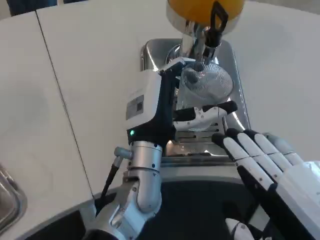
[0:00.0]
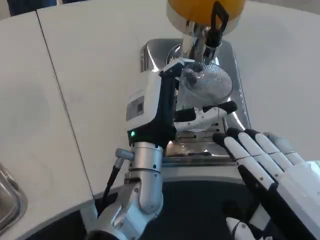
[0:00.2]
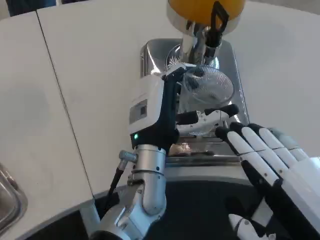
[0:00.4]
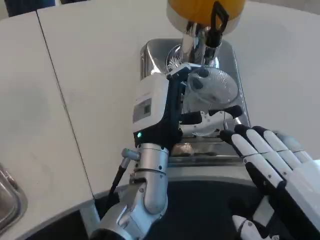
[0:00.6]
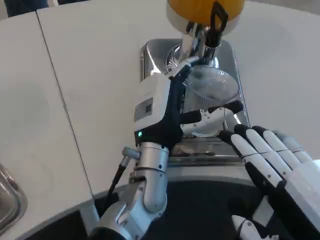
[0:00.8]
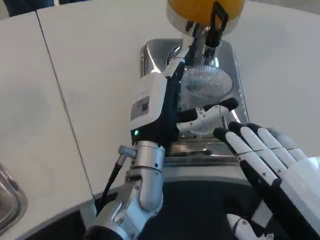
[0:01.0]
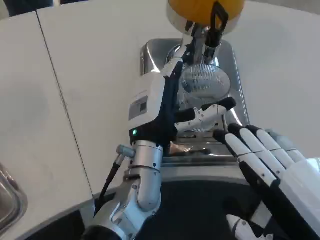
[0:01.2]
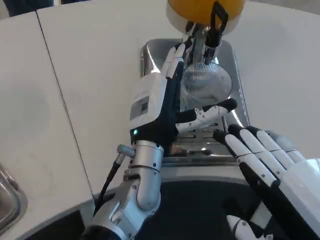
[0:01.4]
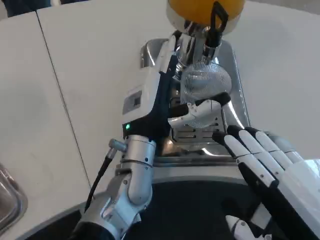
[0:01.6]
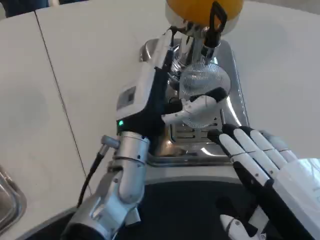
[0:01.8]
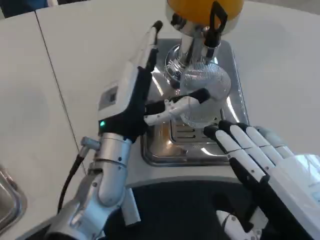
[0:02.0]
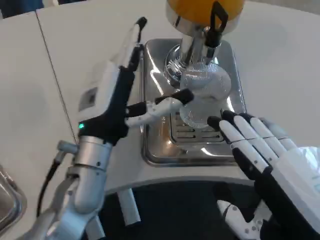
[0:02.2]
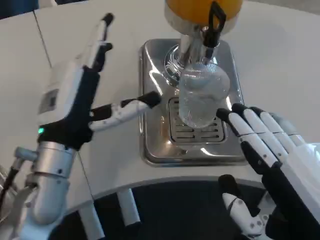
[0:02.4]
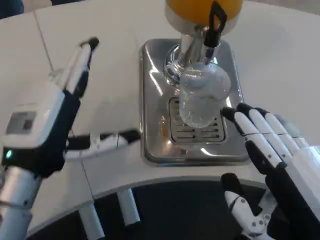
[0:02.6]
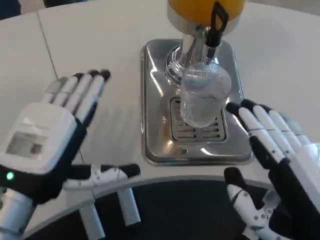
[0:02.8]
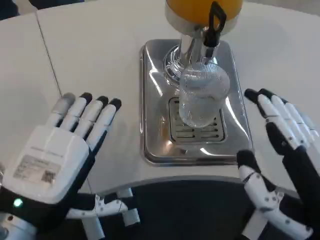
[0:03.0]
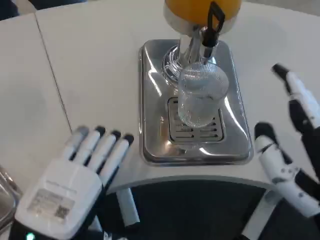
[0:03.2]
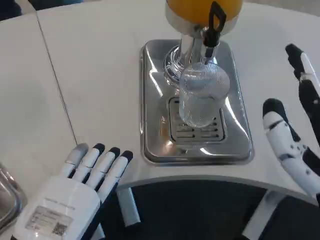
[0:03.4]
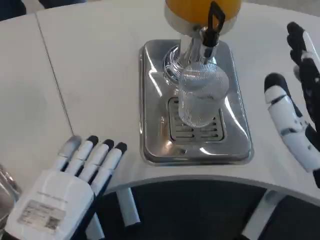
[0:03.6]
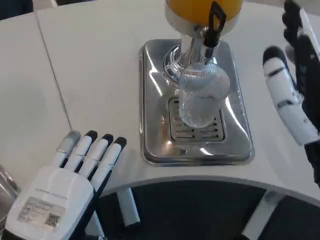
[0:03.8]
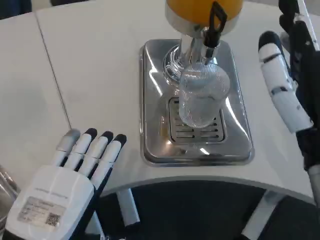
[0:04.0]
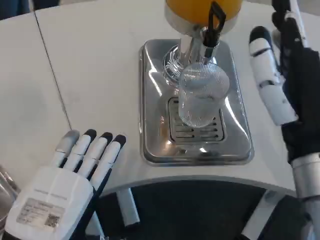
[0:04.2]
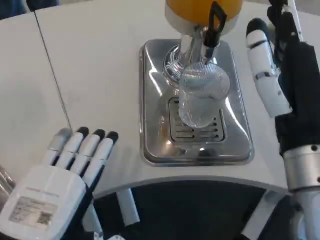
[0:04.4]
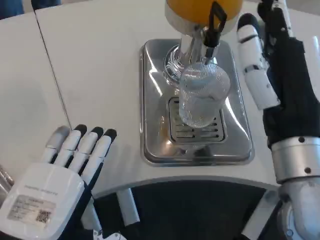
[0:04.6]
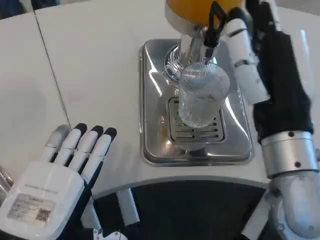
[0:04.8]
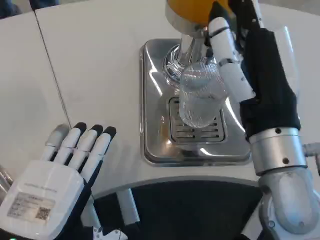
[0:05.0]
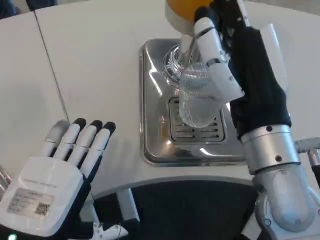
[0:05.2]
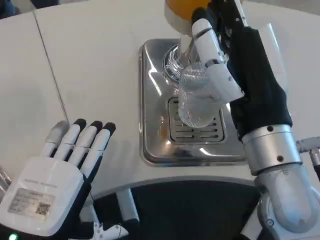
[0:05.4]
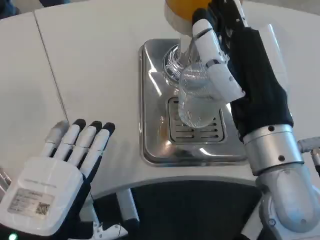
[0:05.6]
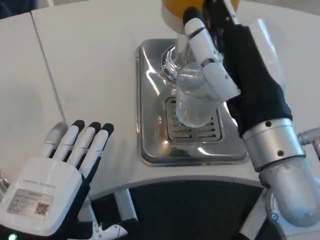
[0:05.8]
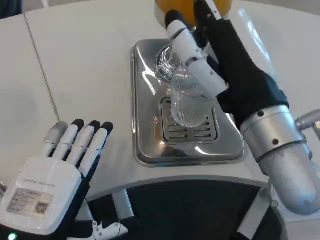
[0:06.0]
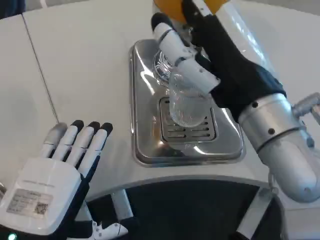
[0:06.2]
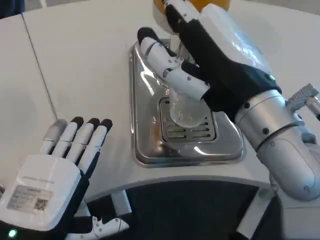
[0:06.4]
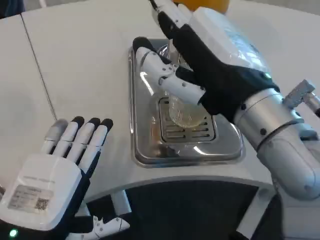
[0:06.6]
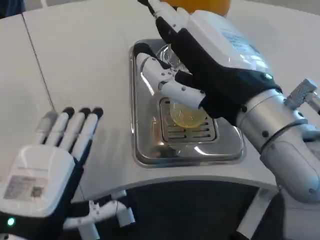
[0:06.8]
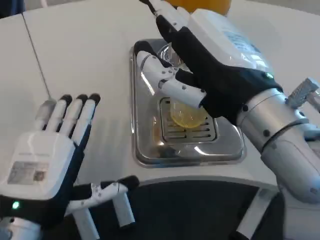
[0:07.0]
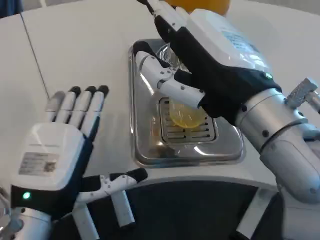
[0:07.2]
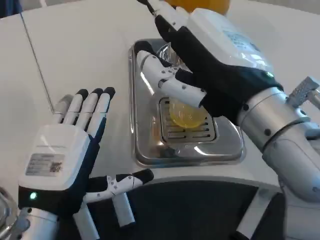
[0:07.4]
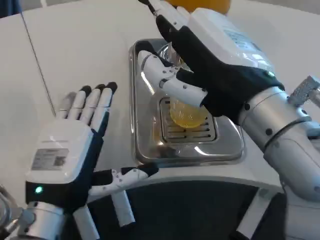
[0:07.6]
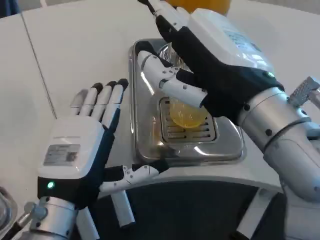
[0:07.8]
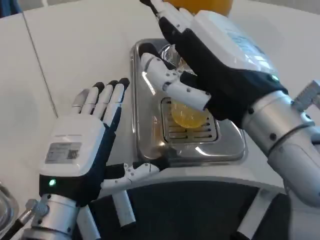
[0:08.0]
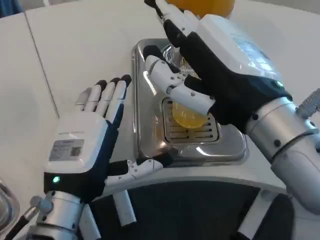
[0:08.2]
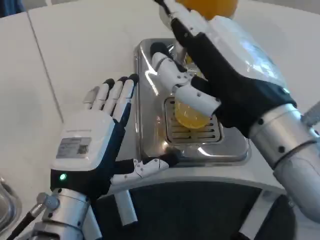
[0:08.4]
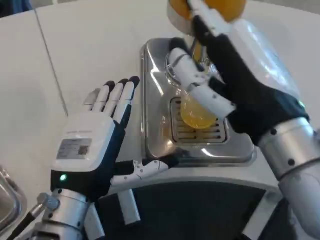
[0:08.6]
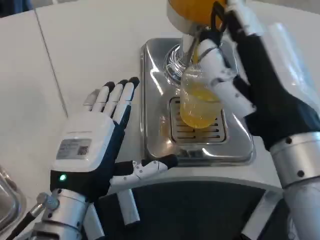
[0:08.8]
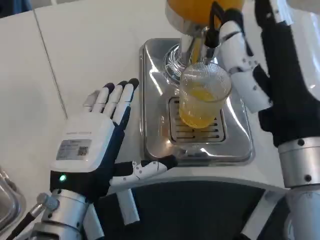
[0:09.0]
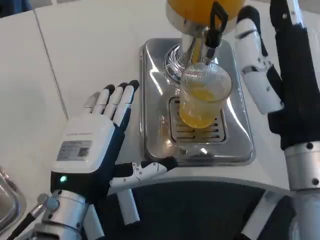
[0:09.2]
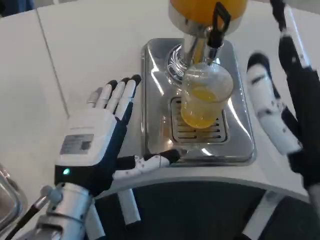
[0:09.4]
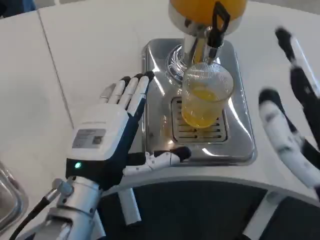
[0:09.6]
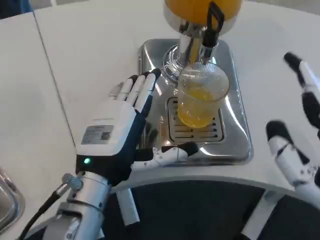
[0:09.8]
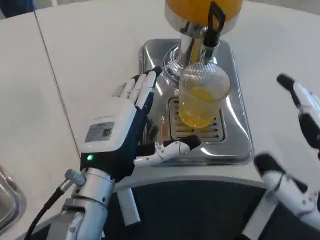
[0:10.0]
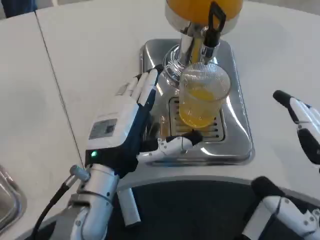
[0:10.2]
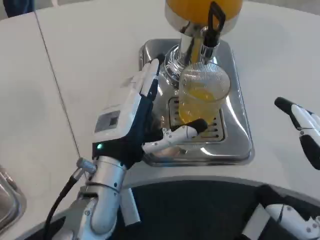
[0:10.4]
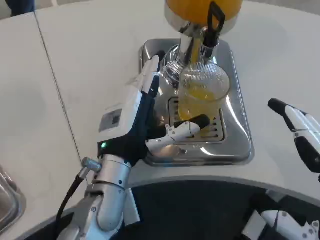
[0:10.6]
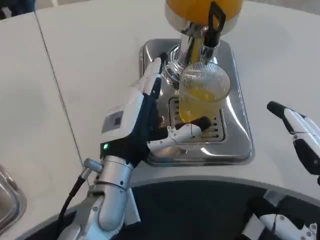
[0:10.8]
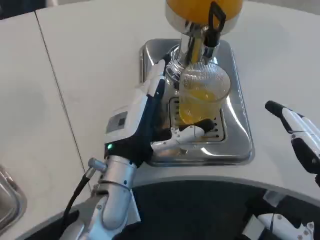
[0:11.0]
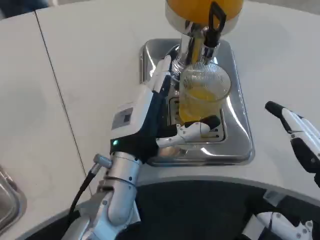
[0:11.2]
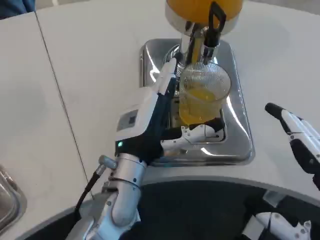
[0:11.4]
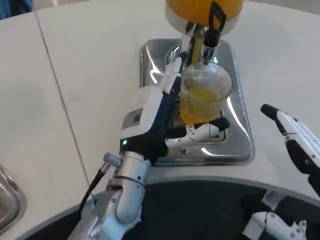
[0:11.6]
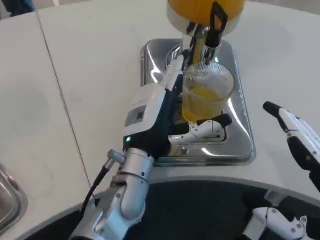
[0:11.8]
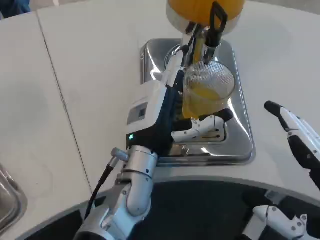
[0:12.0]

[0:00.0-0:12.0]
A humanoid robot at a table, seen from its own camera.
Task of the whole recording: Grasp the cup under the faucet to collect the drink, then remove the cup.
0:00.0 to 0:01.6: The hands make only small movements.
0:01.6 to 0:03.0: The left hand moves backward and to the left, approximately 20 cm.
0:03.0 to 0:04.4: The right hand shifts approximately 10 cm forward.
0:06.0 to 0:07.6: The left hand is displaced forward by roughly 5 cm.
0:07.6 to 0:09.0: The right hand travels downward by roughly 5 cm.
0:09.0 to 0:10.4: The right hand shifts about 15 cm to the right, backward and downward. The left hand moves forward, roughly 5 cm.
0:10.4 to 0:12.0: The left hand ends up approximately 5 cm from where it was.

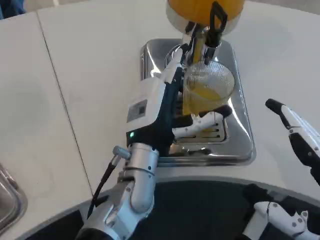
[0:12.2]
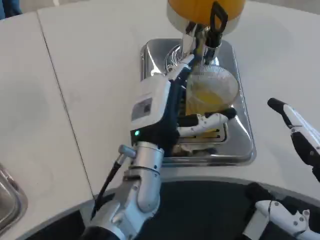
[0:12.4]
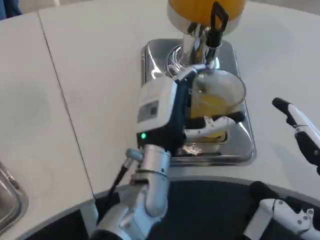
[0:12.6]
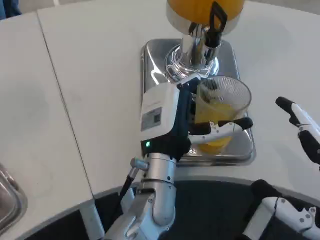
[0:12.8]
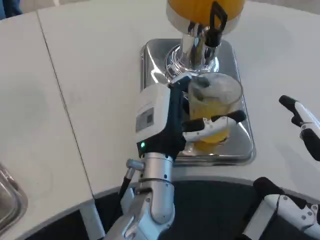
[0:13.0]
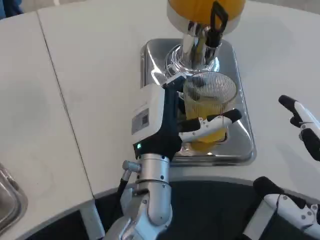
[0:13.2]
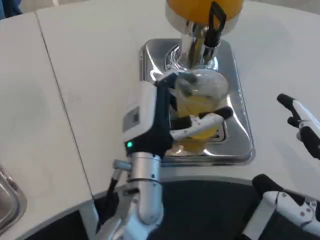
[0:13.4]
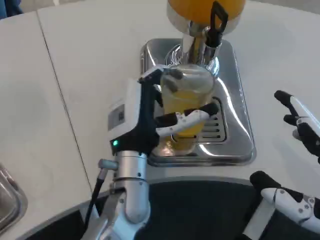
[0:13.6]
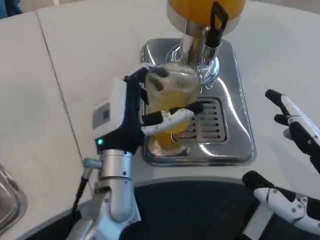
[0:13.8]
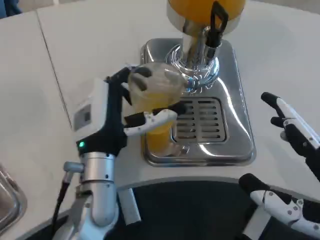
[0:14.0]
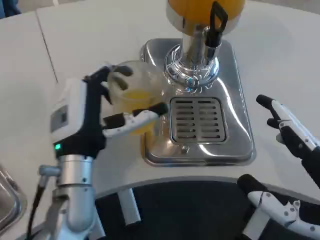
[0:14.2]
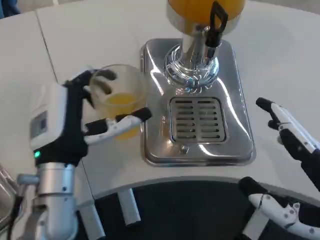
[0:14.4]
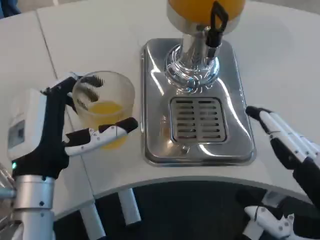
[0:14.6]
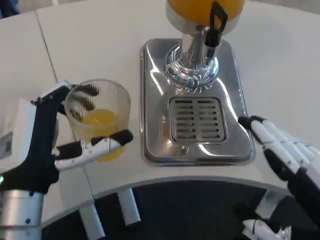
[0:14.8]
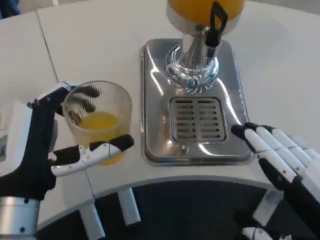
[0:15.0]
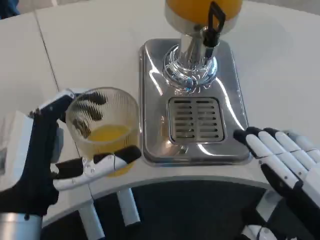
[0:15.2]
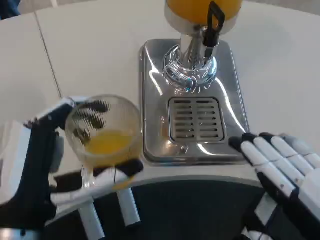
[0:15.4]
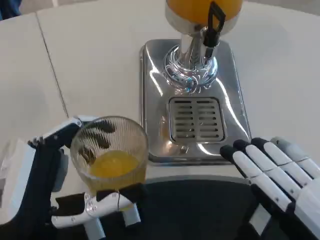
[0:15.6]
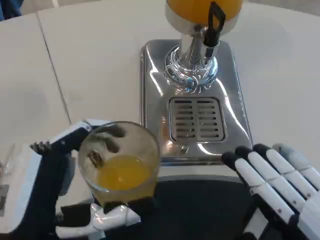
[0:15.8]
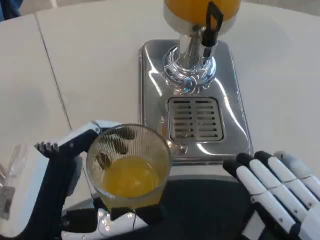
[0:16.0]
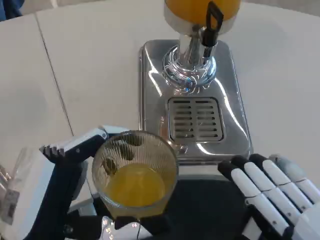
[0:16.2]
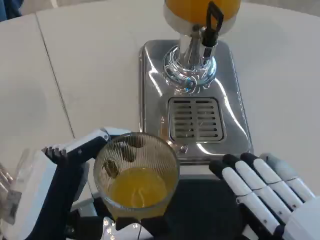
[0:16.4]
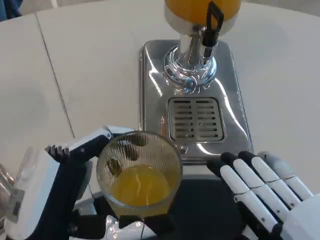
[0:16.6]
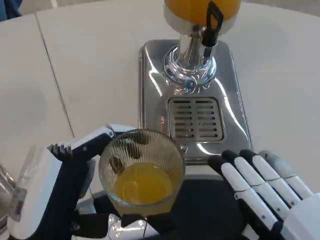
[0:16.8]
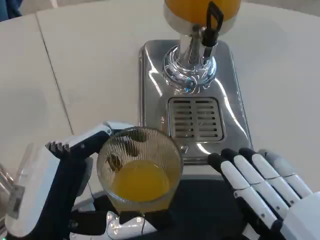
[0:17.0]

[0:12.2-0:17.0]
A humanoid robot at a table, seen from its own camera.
Task of the whole recording: Grasp the cup under the faucet to collect the drink, then remove the cup.
0:13.8 to 0:15.4: The left hand heads backward and to the left, covering about 15 cm.

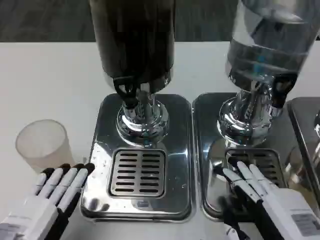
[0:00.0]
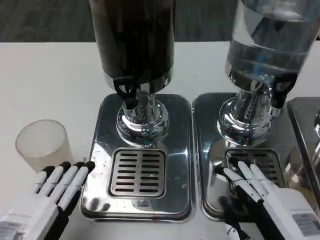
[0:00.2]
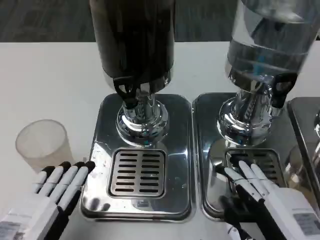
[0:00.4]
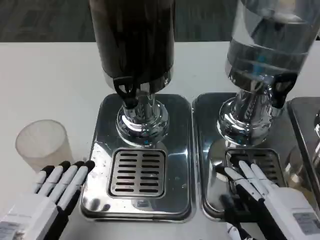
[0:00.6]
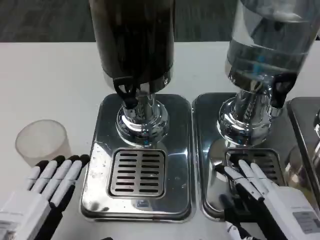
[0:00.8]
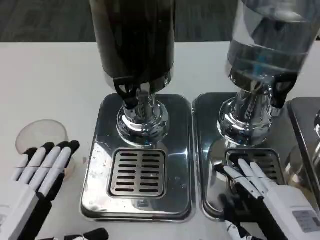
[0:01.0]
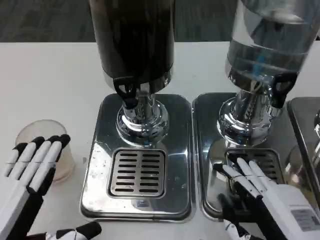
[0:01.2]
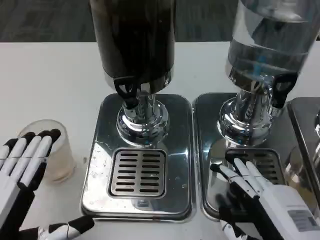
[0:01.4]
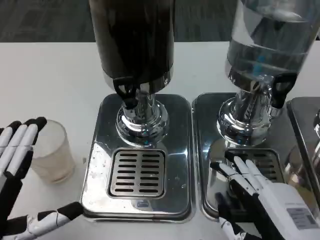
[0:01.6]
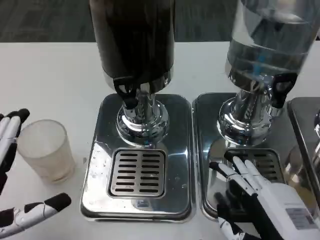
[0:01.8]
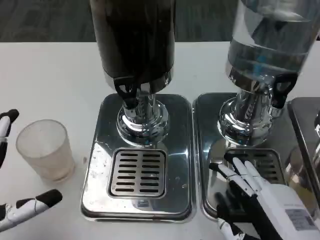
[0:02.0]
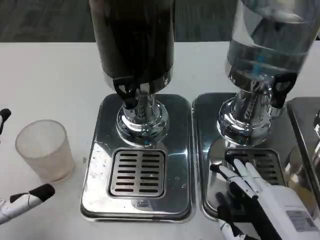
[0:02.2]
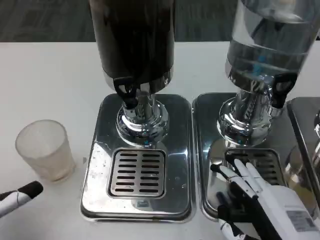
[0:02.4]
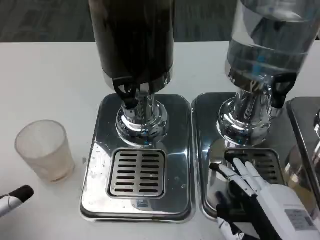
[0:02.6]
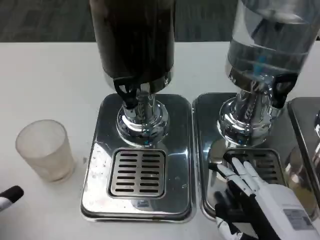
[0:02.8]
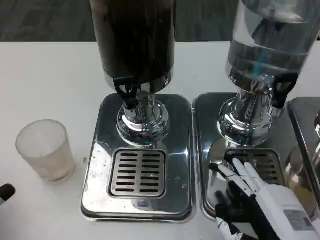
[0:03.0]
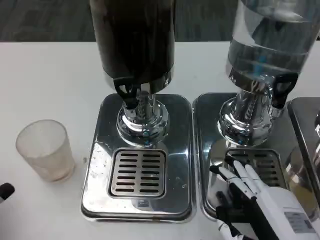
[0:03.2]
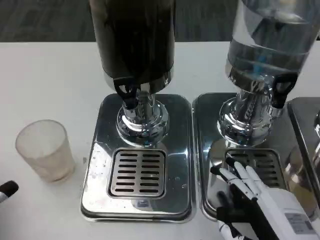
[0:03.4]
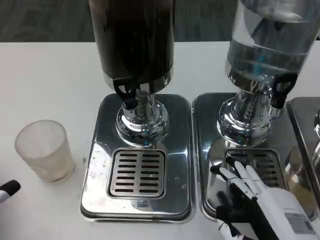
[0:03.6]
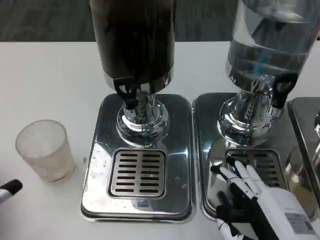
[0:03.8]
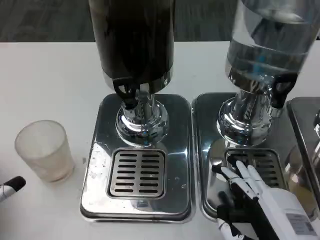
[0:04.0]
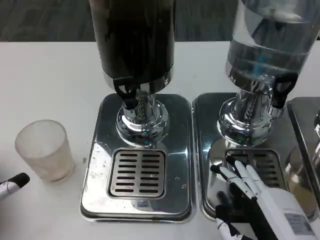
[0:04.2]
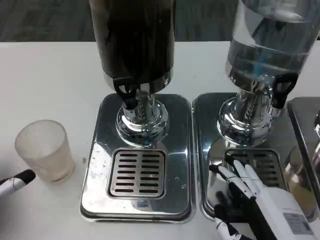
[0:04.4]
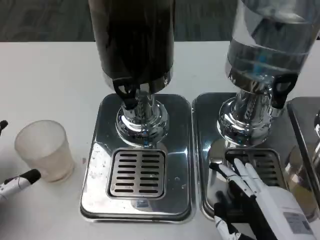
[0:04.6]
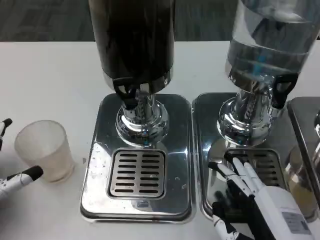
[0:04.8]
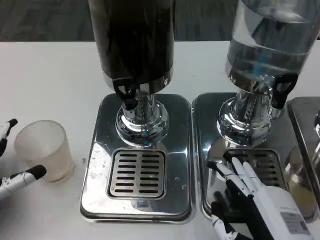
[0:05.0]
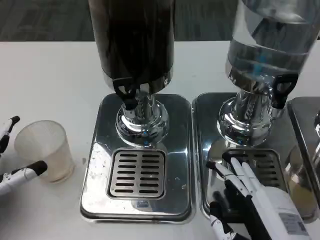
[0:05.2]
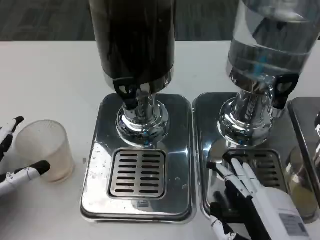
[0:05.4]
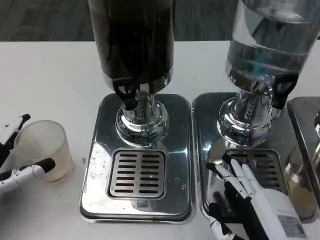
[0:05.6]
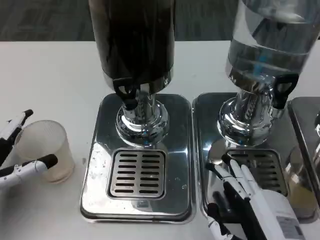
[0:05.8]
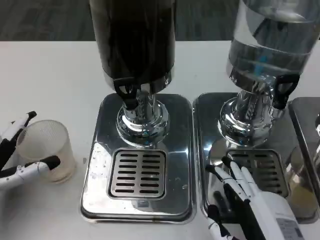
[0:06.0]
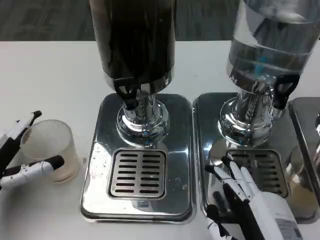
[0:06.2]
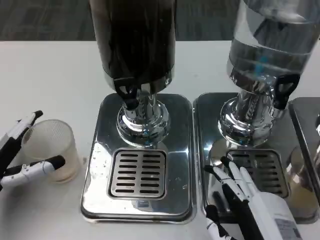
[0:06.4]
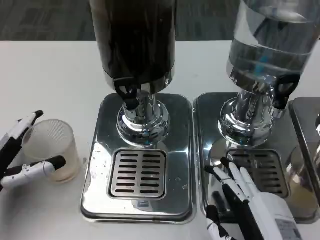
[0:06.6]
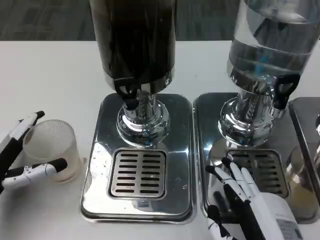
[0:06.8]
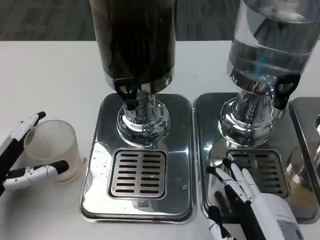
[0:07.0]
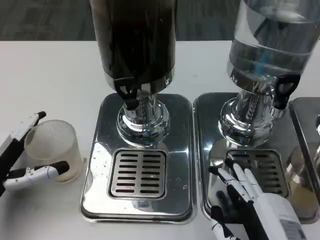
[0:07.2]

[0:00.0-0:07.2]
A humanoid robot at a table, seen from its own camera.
Task of the whole recording: Grasp the cup under the faucet to collect the drink, then remove the cup.
0:00.0 to 0:01.4: The hands make only small movements.
0:01.4 to 0:02.8: The left hand travels to the left by some 5 cm.
0:02.8 to 0:04.4: The left hand travels forward by some 5 cm.
0:04.4 to 0:05.8: There are only small adjustments of the hands.
0:05.8 to 0:07.2: The two hands keep their place.
